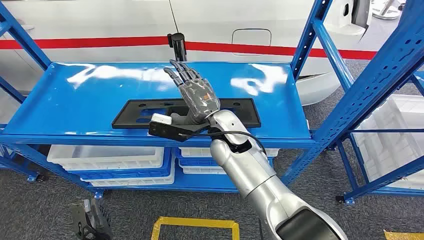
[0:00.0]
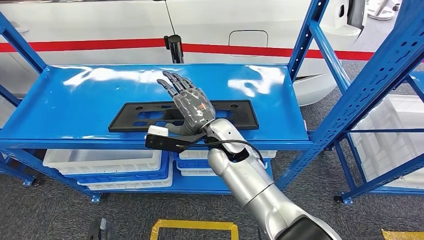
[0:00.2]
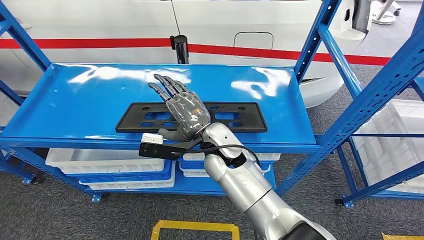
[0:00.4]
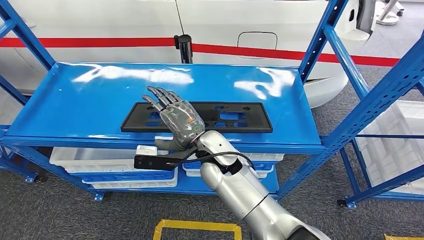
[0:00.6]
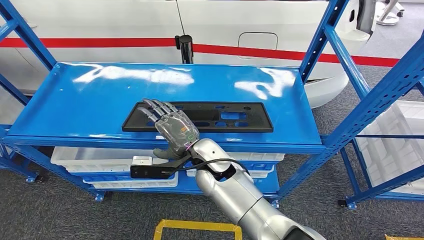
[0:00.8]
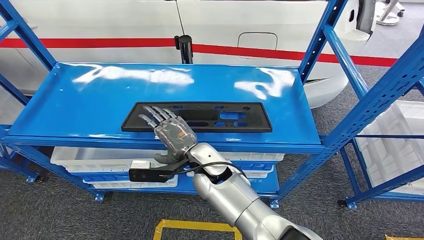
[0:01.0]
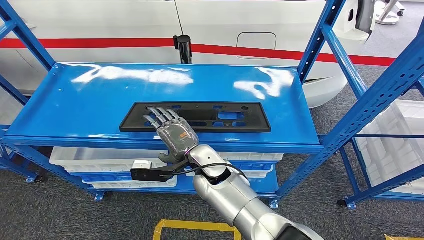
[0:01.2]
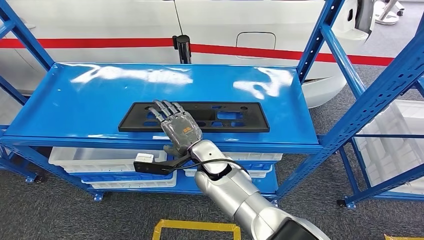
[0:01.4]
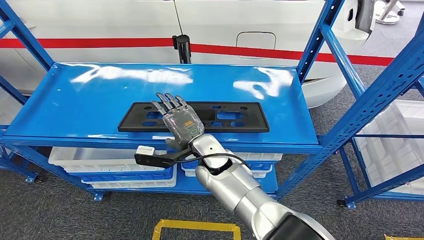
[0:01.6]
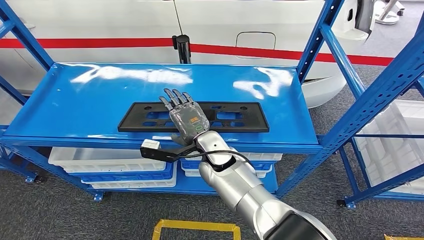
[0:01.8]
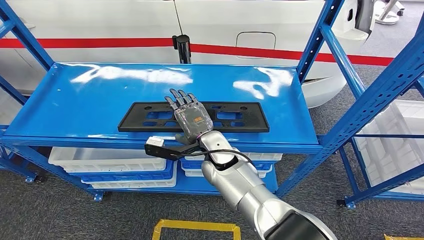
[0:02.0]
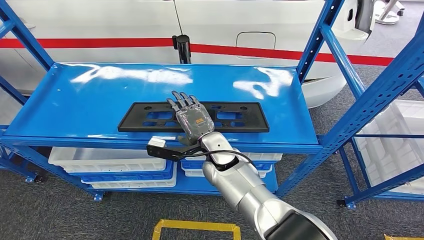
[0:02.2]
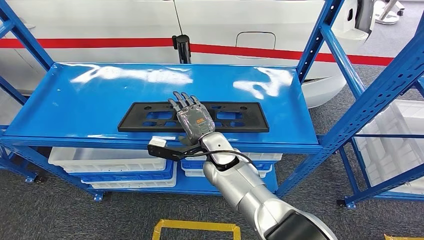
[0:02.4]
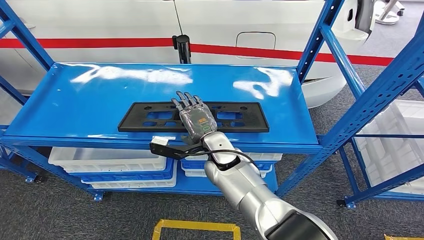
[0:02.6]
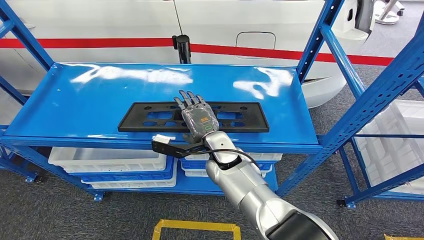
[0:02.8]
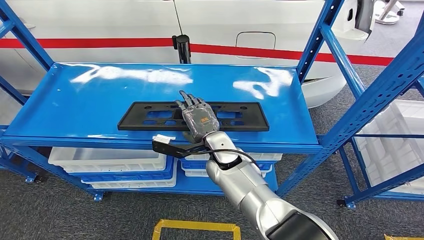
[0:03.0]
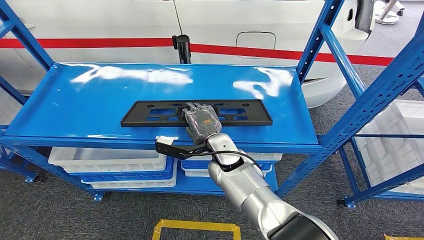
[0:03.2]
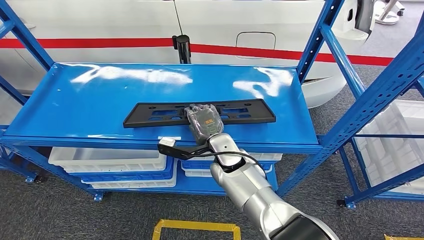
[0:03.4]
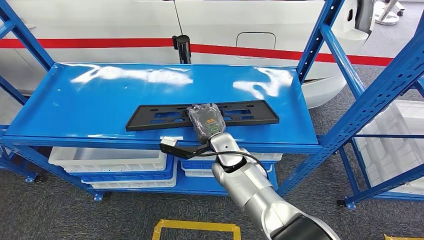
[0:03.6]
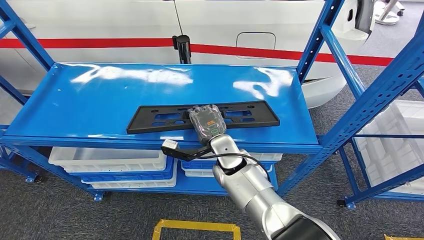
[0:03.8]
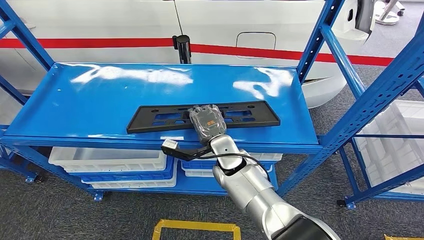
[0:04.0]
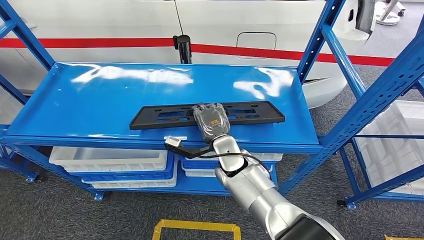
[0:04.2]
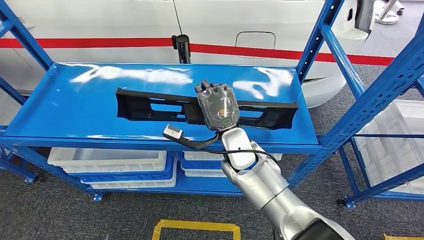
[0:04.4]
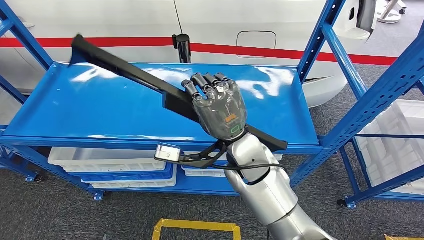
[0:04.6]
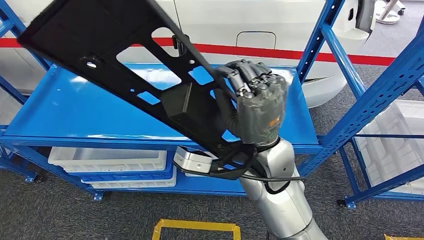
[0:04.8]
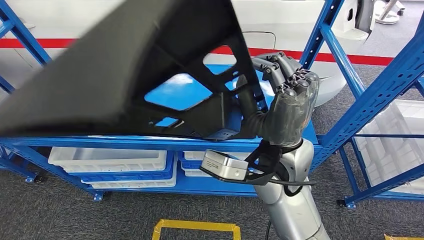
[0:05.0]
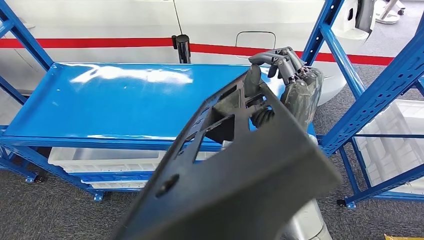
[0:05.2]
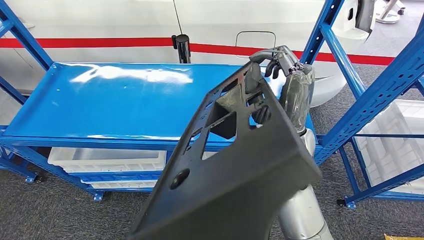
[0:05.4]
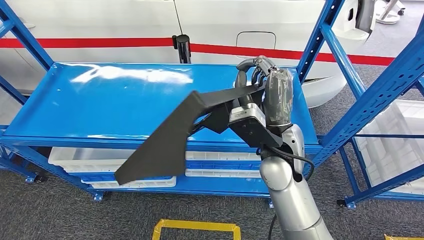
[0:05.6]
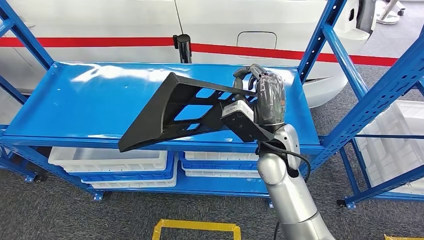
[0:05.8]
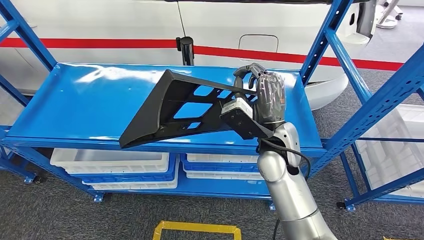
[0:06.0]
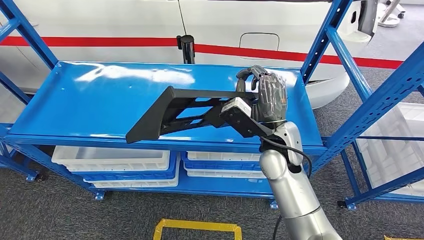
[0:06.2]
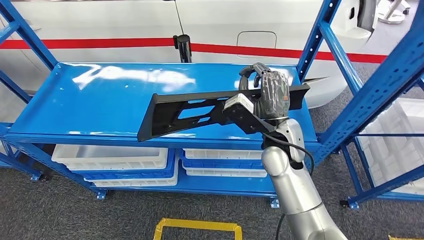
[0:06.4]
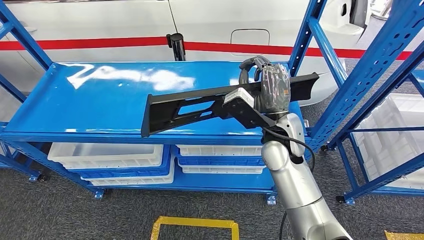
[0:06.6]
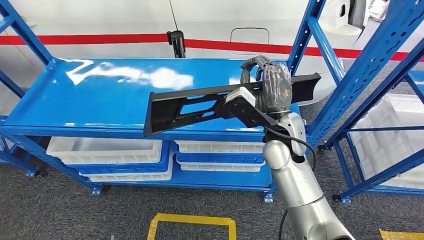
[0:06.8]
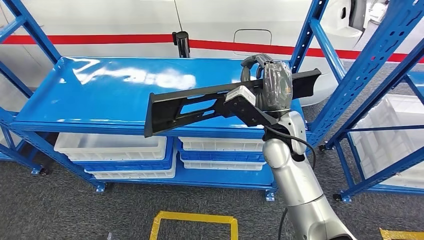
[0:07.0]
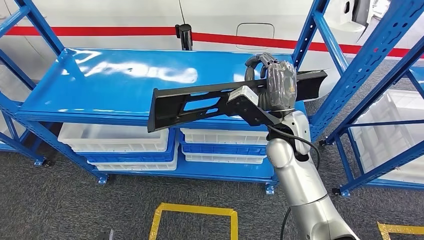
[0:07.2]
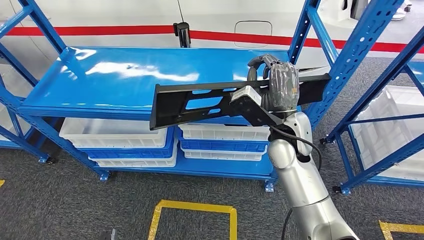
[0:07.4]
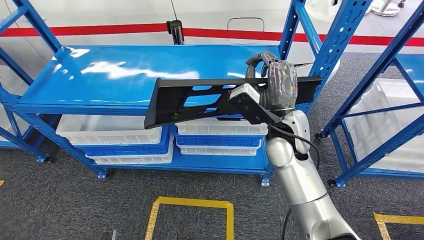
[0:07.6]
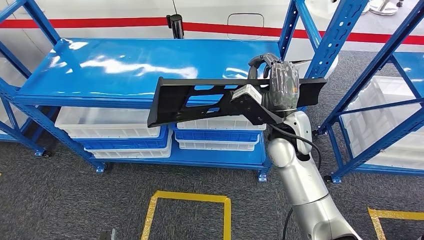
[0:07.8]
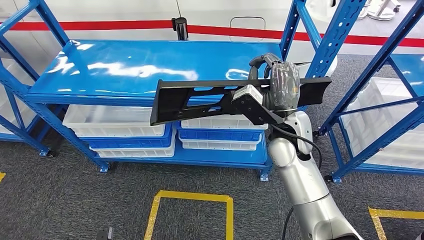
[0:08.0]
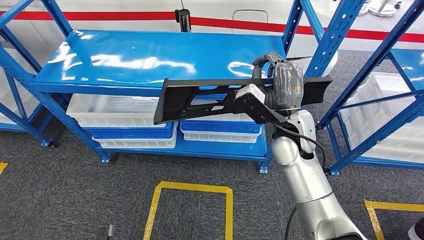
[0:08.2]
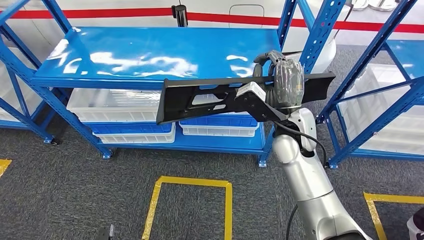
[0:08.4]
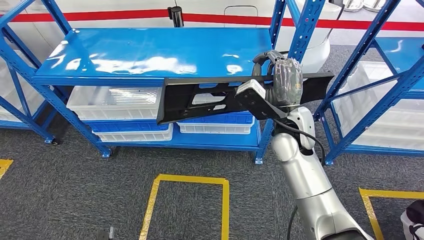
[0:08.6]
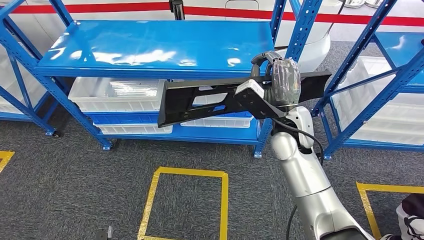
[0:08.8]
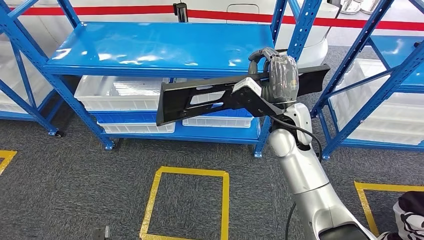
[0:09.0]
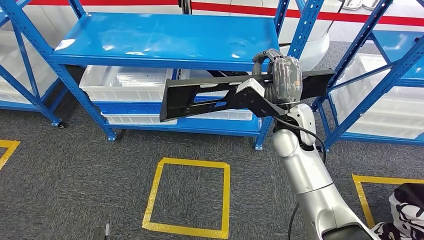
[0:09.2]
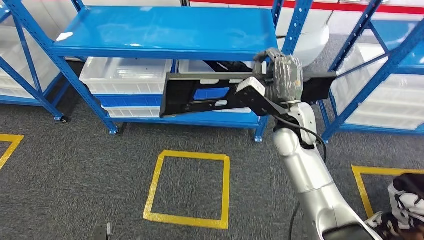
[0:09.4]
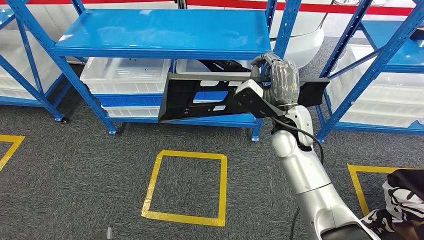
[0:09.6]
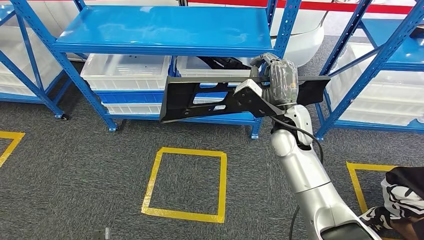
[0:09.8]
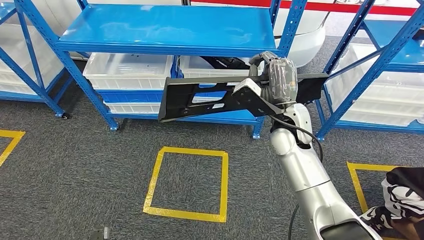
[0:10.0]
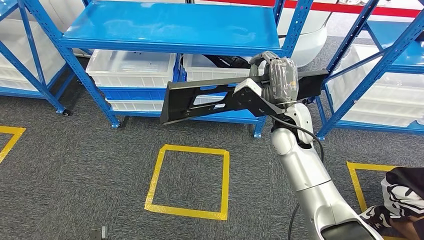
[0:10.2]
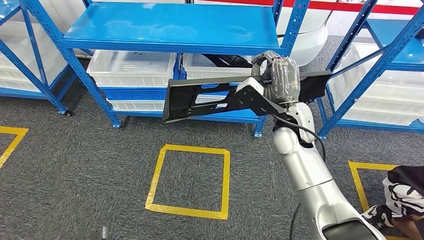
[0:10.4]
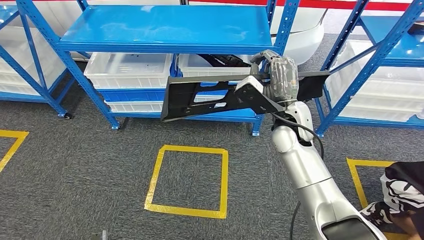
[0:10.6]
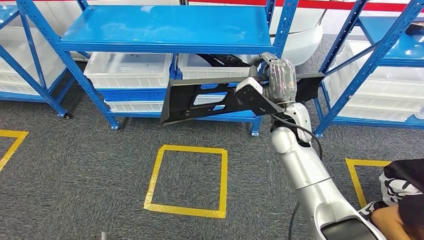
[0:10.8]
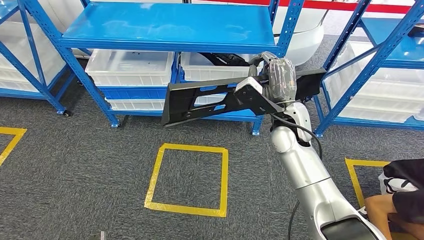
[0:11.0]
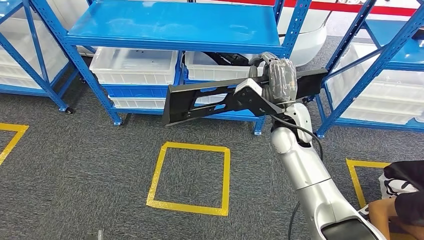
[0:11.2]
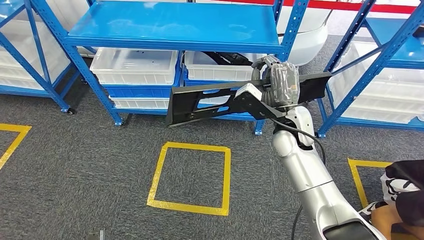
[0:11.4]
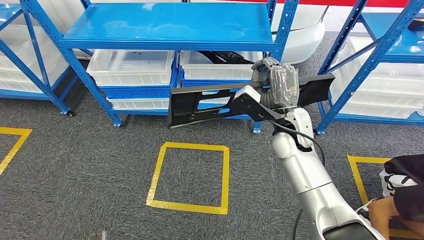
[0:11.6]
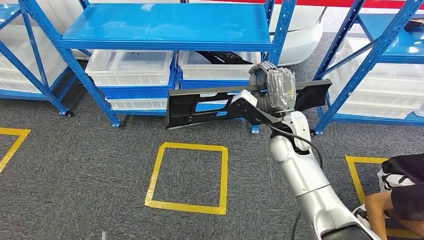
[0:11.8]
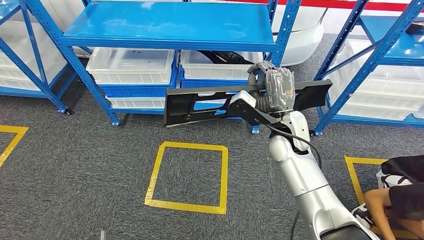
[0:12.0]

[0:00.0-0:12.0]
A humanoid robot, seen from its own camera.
Step, 0:00.0 to 0:08.2: Pick up the large material from the shelf.
0:01.6 to 0:03.0: The hands stay close to where they were, moving slightly.

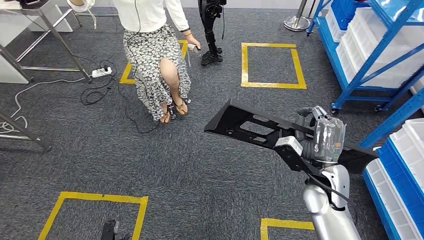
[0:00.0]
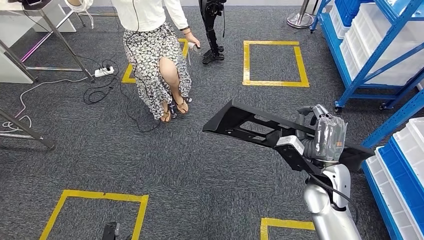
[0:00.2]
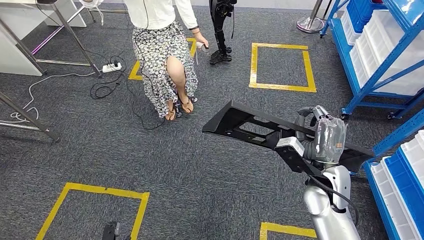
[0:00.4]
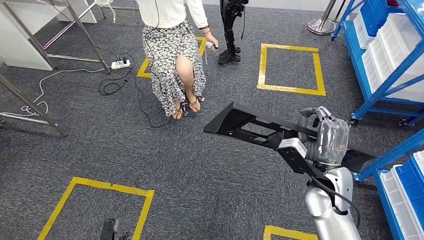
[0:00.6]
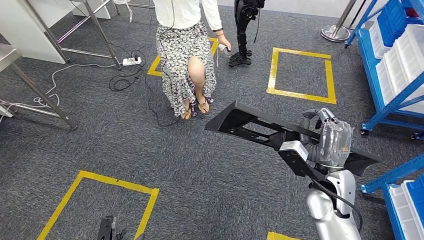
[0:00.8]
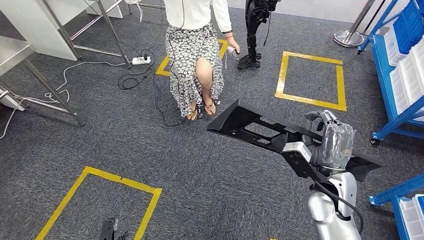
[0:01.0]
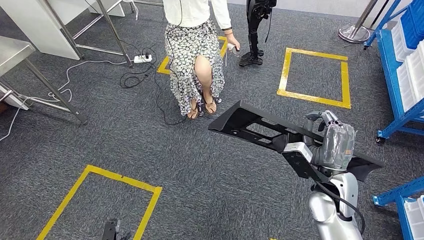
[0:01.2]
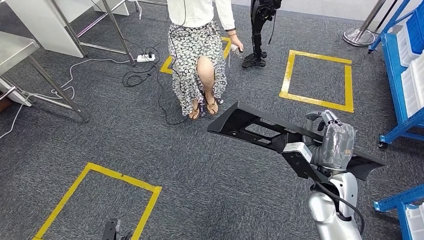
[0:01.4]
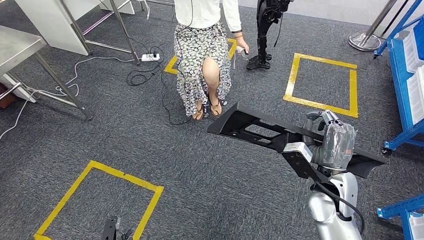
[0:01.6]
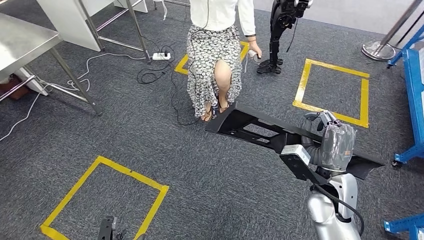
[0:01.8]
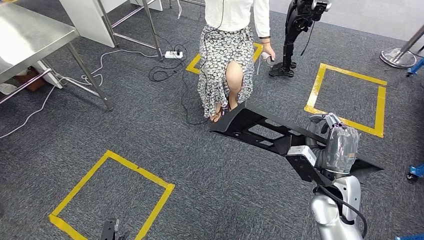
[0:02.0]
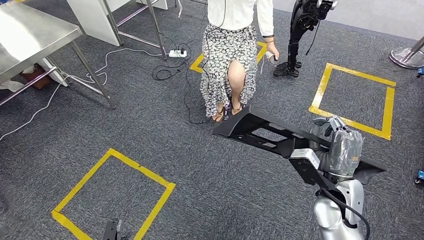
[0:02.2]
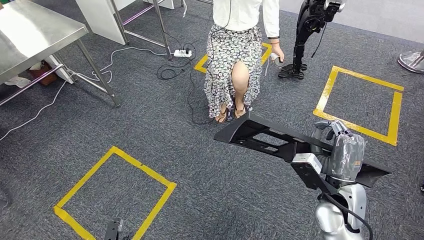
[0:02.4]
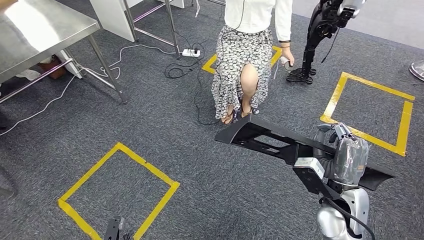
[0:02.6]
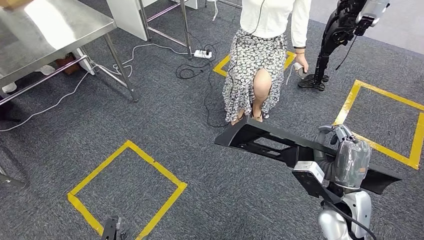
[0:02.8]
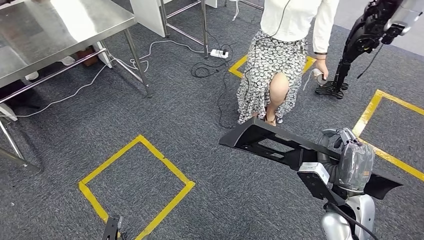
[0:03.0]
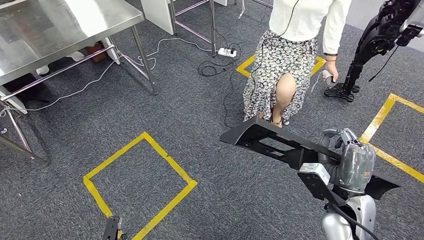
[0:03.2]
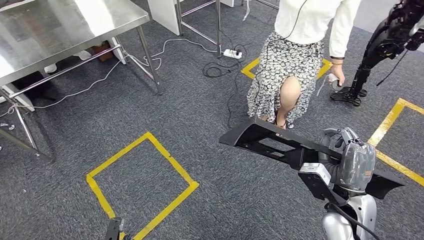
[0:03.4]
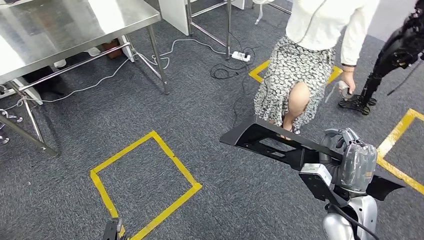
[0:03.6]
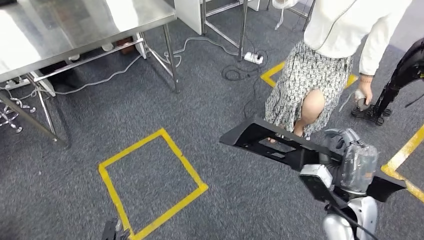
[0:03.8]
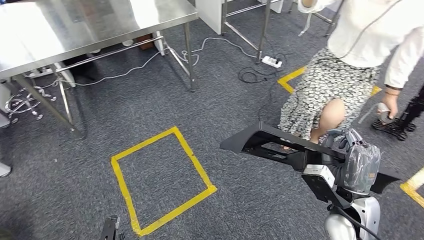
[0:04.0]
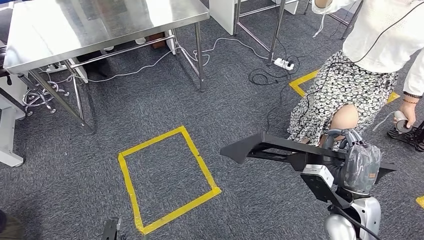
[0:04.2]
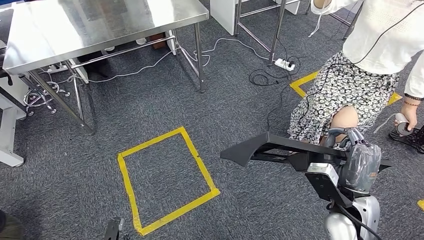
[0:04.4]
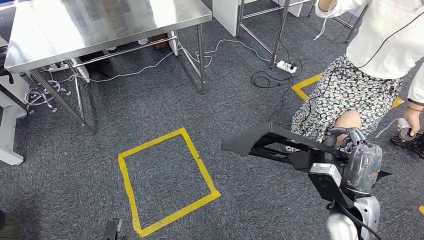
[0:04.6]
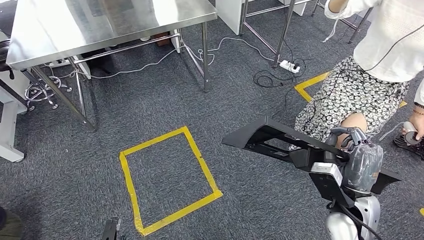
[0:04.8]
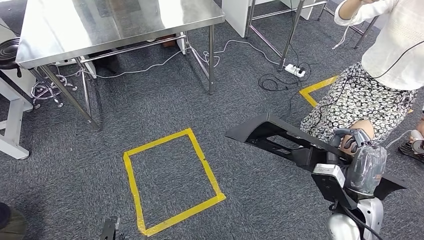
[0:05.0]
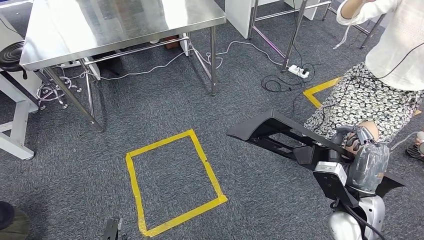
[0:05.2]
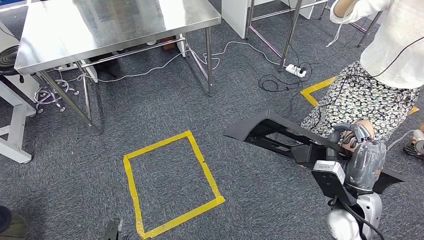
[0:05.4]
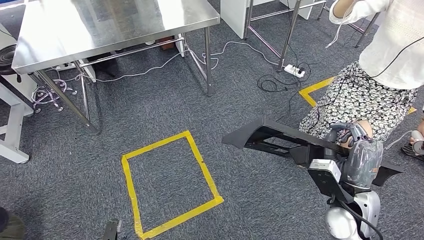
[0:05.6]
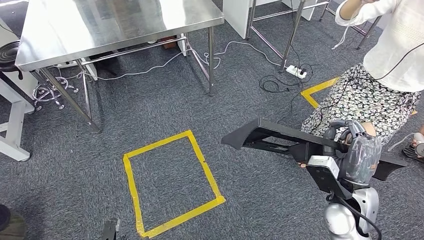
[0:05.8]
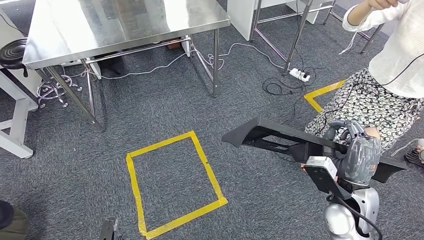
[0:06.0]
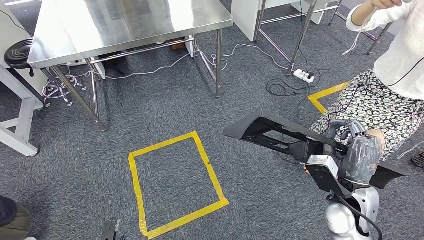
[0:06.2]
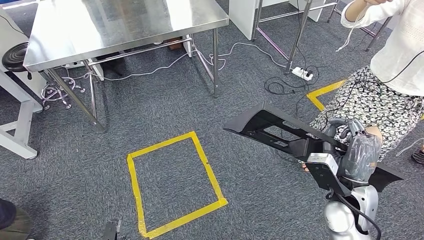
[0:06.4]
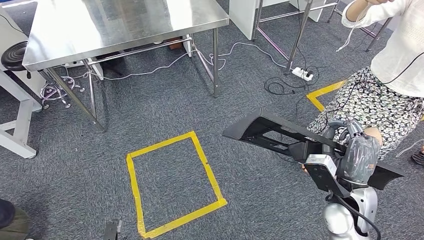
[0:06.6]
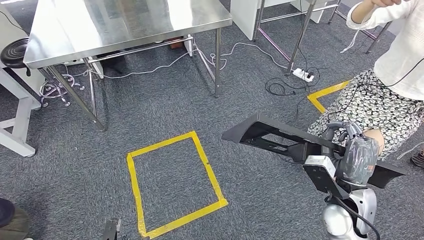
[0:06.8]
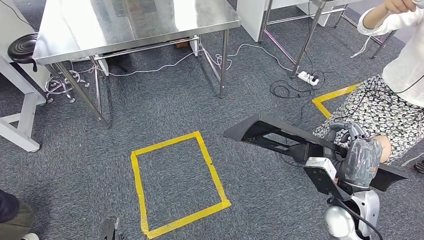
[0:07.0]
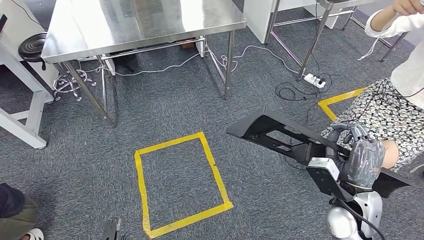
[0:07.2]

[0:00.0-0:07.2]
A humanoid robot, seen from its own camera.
Step, 0:00.0 to 0:07.0: Move the large material to the workbench.
